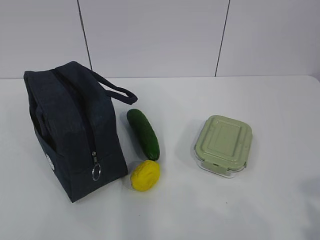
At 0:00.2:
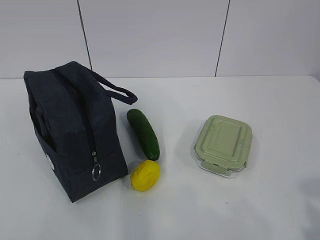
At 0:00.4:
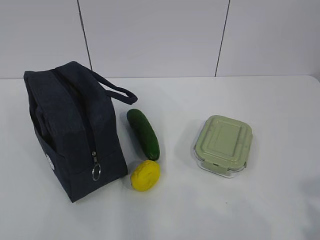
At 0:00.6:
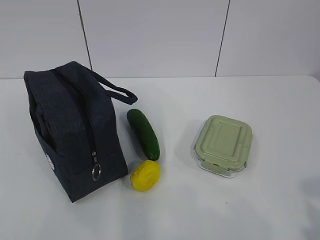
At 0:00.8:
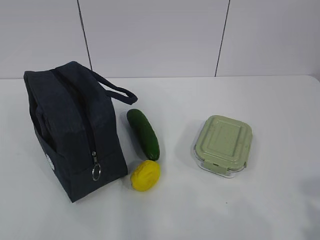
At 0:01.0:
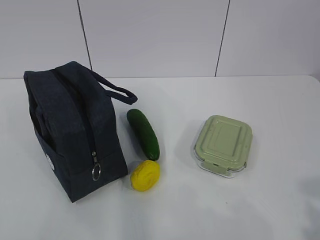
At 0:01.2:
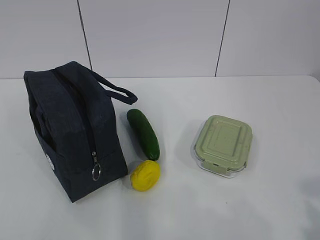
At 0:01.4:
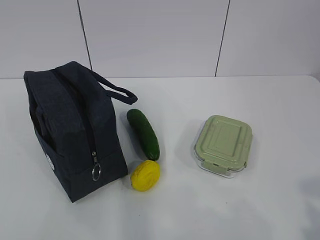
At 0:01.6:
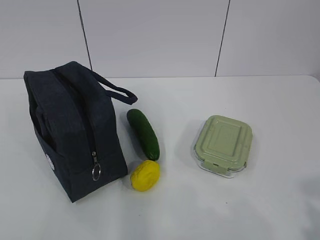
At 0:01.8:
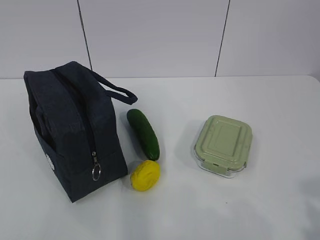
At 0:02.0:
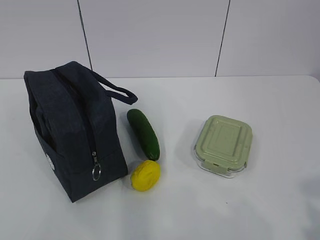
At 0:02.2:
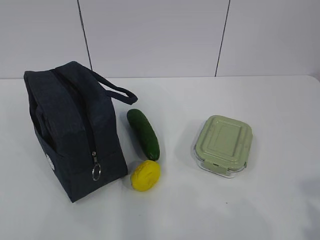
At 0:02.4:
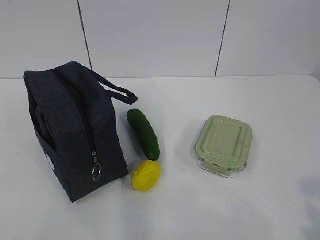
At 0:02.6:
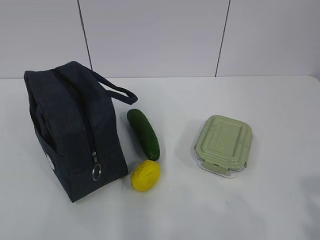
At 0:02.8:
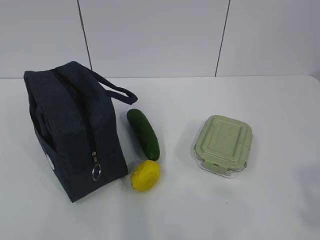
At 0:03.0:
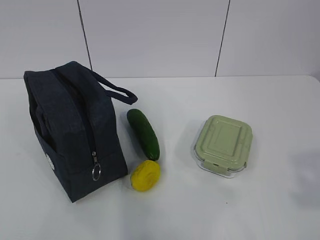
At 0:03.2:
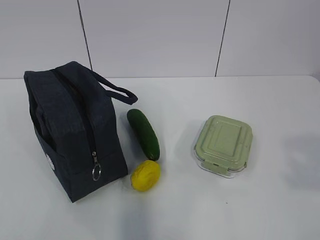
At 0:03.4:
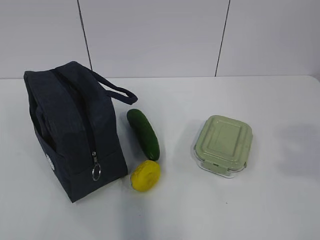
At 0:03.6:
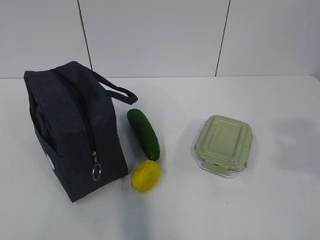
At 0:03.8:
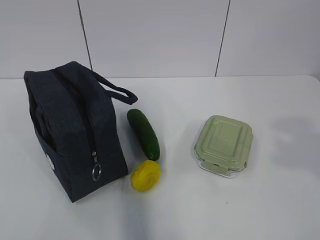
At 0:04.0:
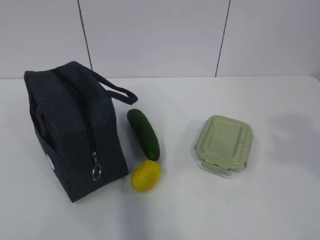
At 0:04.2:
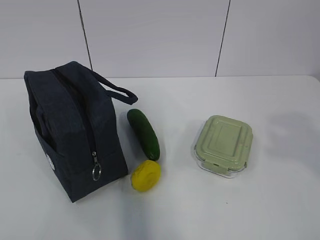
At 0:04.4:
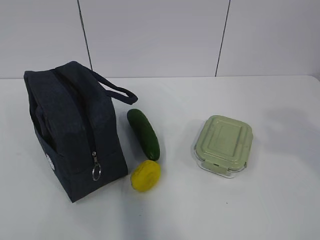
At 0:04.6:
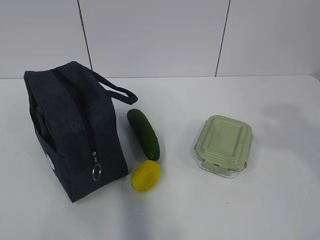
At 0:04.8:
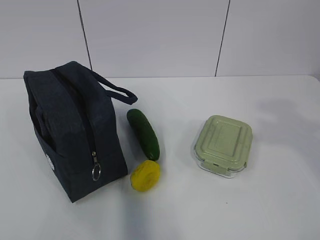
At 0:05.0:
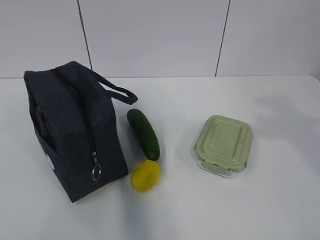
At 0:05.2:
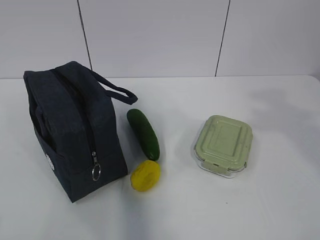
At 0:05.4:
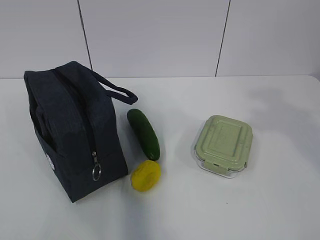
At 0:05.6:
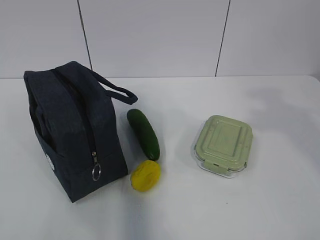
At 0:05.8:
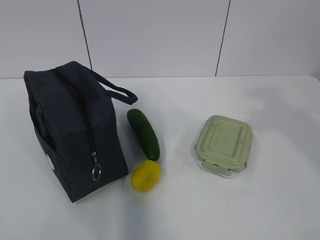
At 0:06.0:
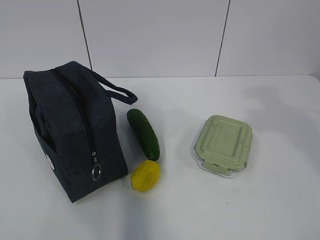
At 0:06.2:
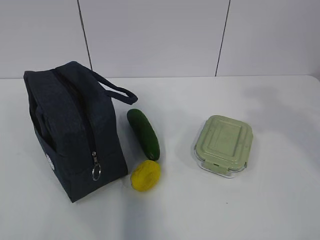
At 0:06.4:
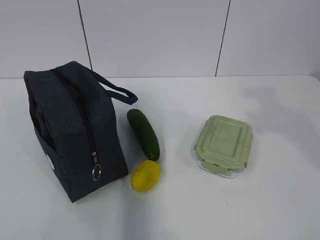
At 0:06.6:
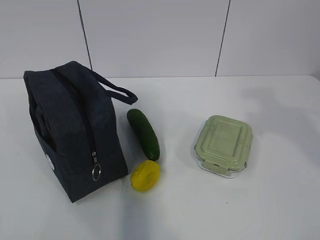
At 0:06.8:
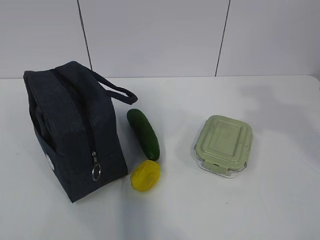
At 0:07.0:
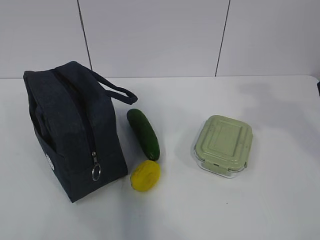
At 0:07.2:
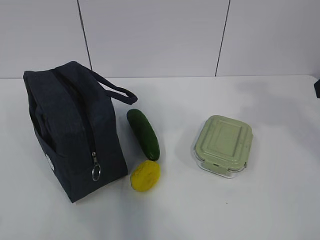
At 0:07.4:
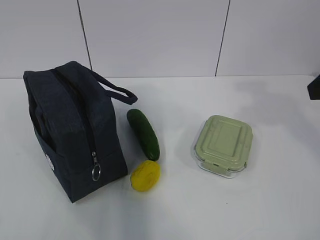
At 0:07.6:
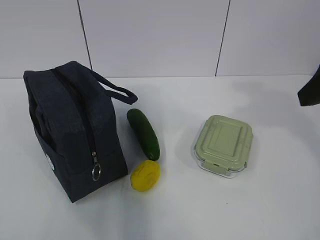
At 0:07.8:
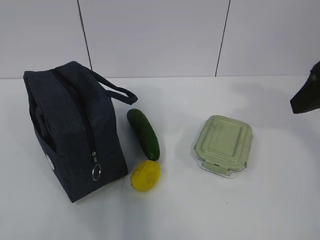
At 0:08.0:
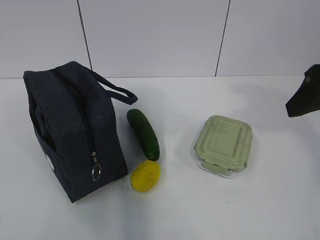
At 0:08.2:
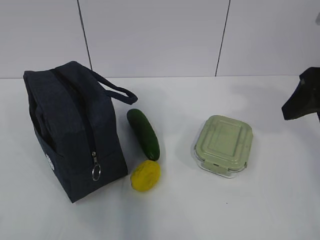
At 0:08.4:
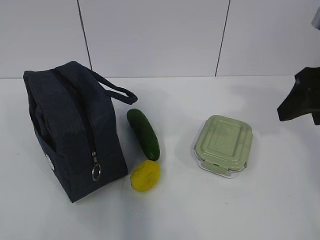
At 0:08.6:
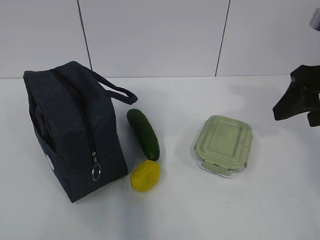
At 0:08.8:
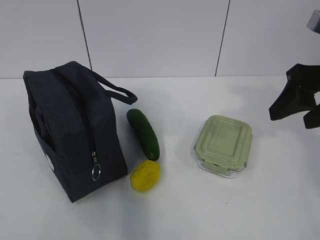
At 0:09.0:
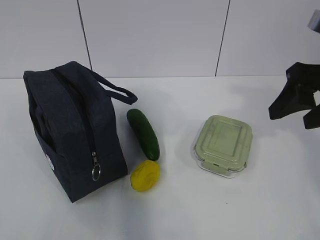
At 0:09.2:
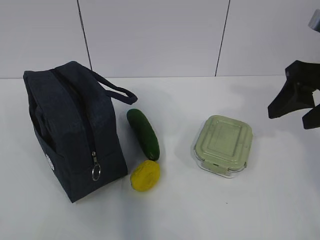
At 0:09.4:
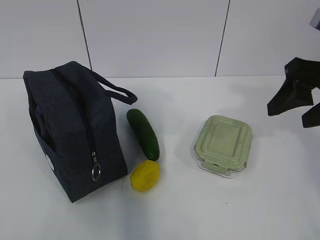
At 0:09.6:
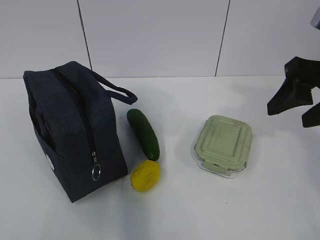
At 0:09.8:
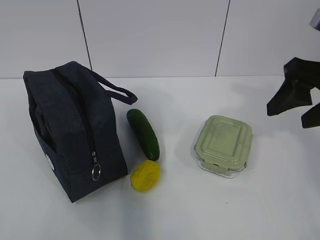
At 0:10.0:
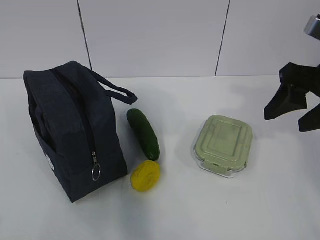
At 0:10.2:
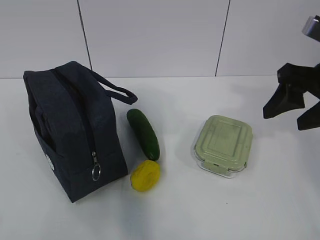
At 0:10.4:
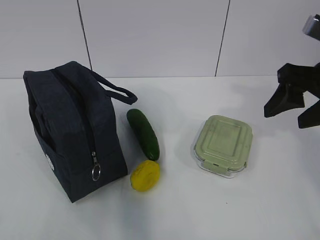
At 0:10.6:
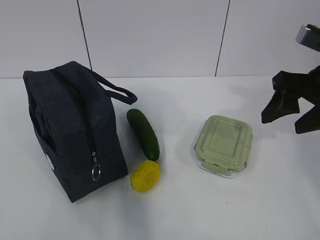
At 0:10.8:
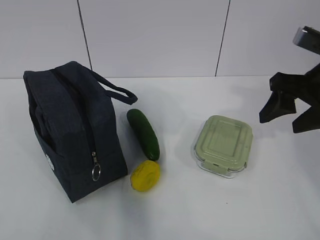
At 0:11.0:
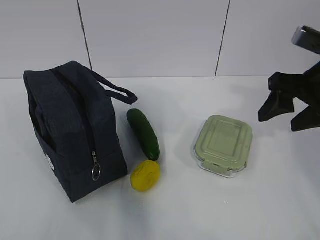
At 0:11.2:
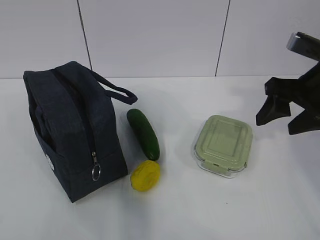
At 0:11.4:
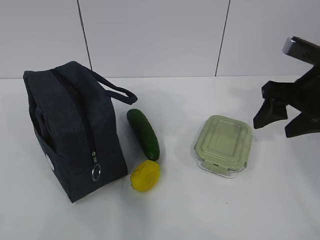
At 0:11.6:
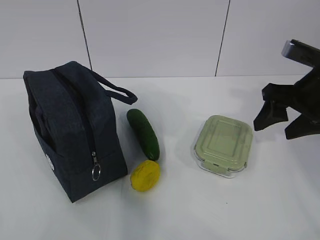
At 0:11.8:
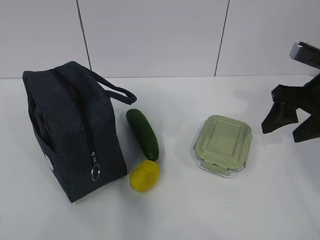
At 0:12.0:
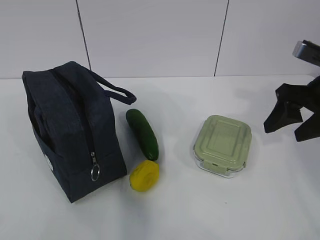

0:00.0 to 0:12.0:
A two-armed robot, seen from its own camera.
0:06.0 to 0:07.6: The right gripper goes some 5 cm forward.
0:07.6 to 0:09.0: The grippers move only a little.
0:09.0 to 0:10.4: The grippers make only small movements.
0:10.4 to 0:12.0: The grippers stay close to where they were, moving slightly.

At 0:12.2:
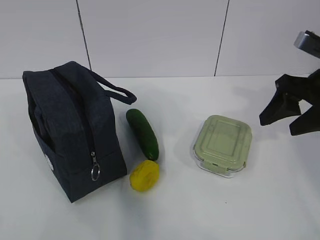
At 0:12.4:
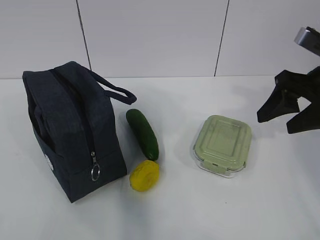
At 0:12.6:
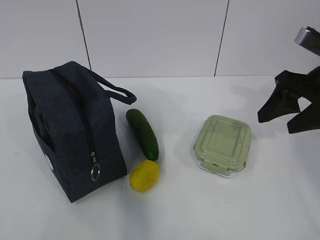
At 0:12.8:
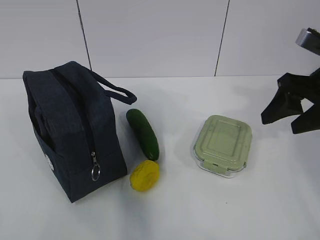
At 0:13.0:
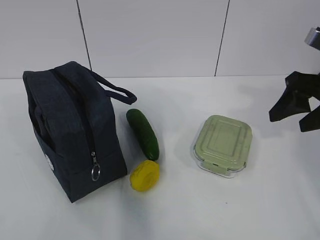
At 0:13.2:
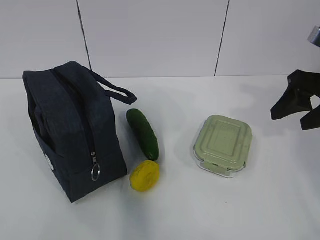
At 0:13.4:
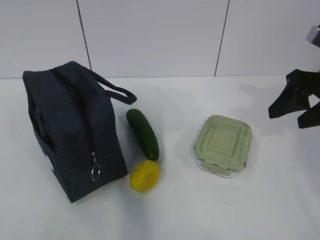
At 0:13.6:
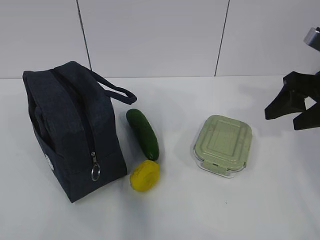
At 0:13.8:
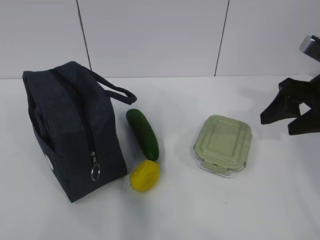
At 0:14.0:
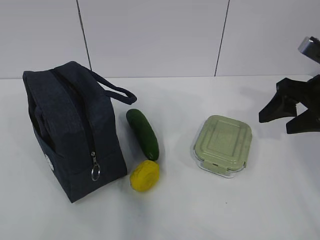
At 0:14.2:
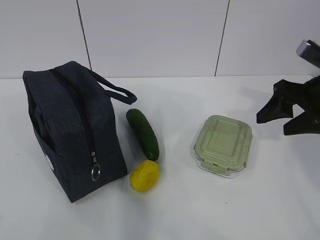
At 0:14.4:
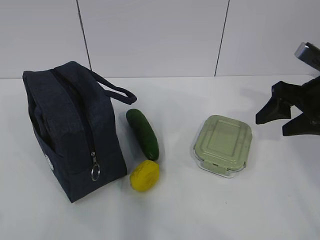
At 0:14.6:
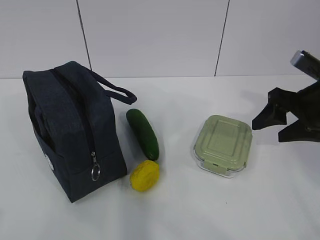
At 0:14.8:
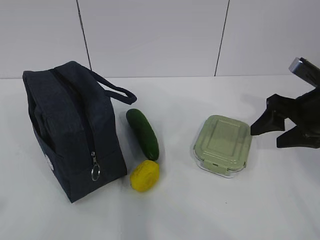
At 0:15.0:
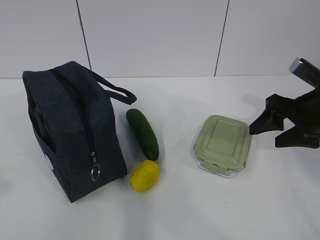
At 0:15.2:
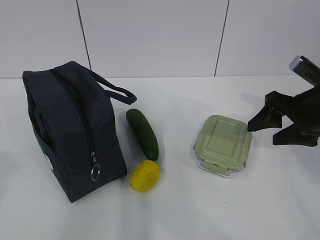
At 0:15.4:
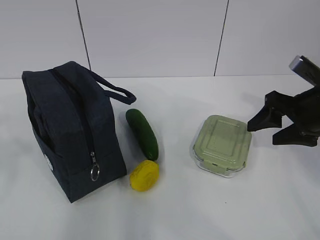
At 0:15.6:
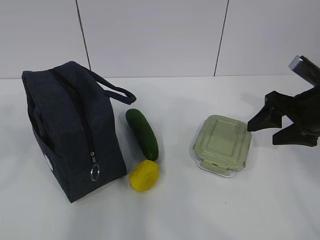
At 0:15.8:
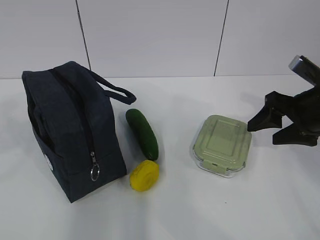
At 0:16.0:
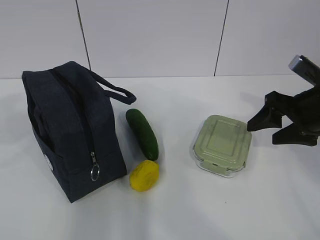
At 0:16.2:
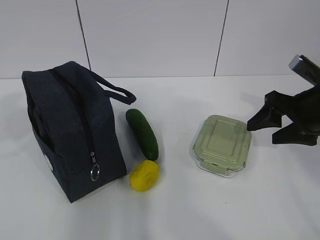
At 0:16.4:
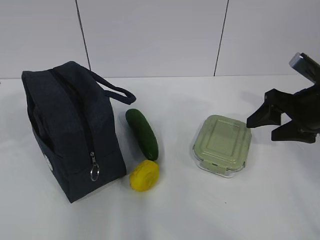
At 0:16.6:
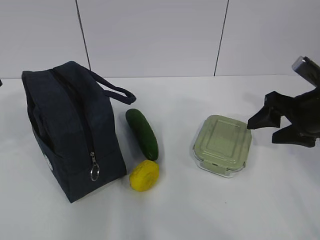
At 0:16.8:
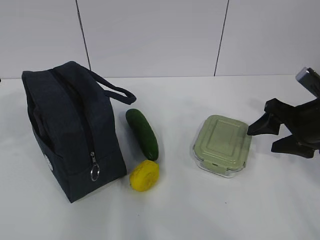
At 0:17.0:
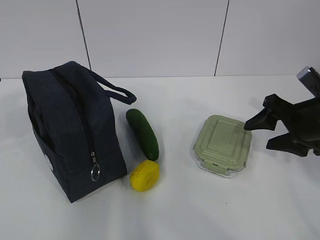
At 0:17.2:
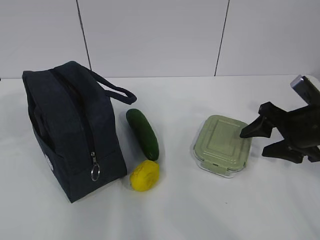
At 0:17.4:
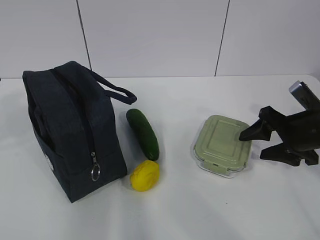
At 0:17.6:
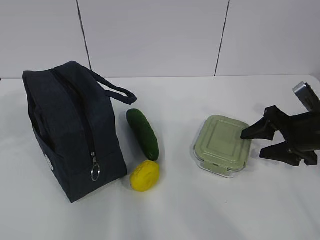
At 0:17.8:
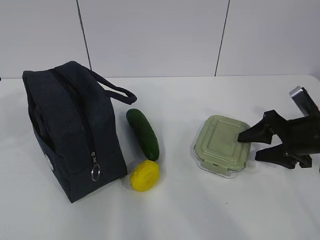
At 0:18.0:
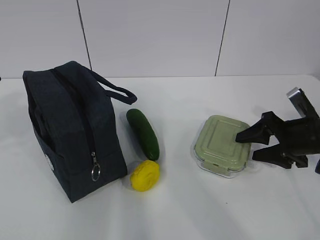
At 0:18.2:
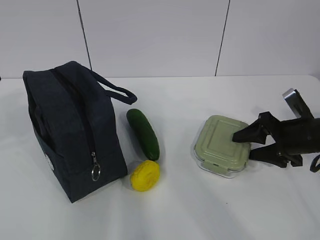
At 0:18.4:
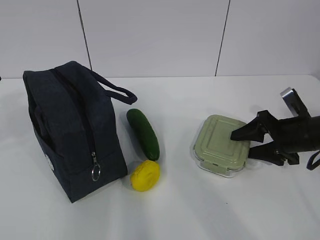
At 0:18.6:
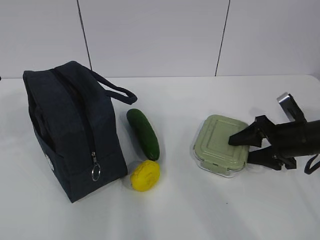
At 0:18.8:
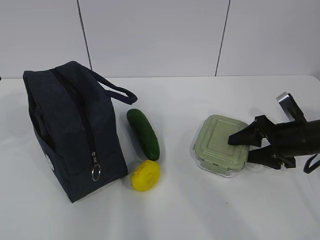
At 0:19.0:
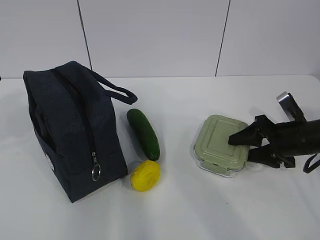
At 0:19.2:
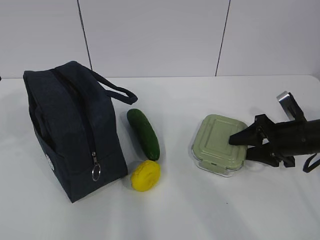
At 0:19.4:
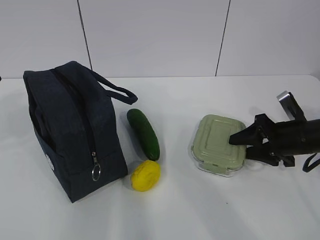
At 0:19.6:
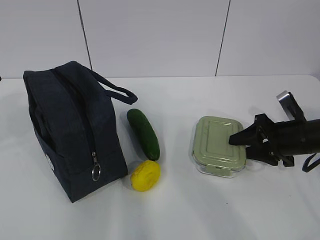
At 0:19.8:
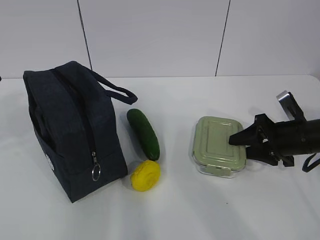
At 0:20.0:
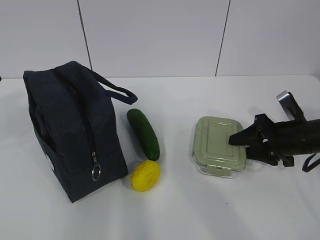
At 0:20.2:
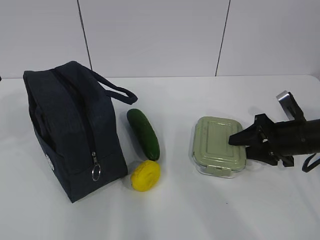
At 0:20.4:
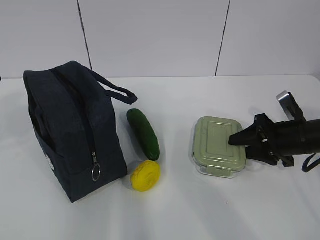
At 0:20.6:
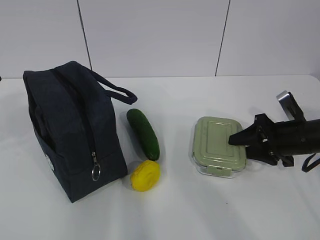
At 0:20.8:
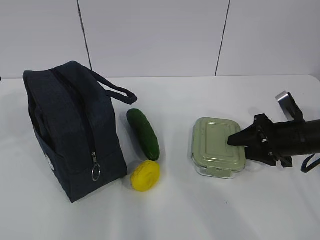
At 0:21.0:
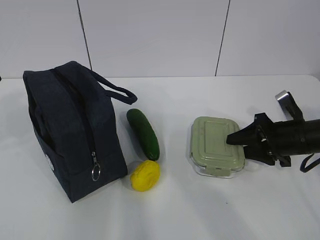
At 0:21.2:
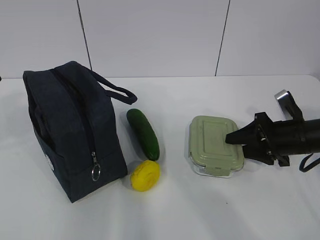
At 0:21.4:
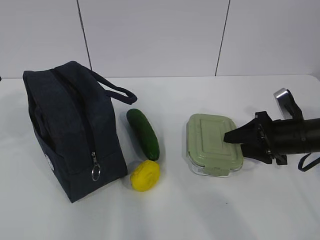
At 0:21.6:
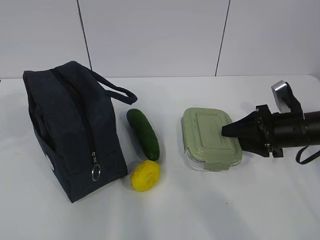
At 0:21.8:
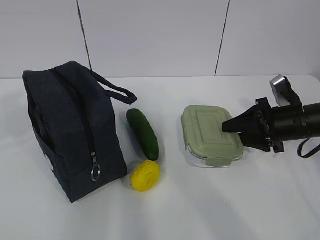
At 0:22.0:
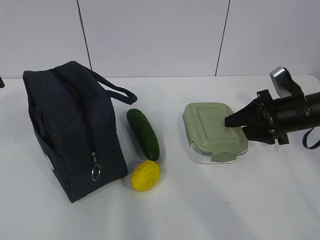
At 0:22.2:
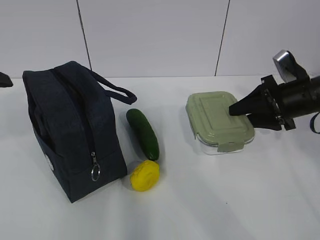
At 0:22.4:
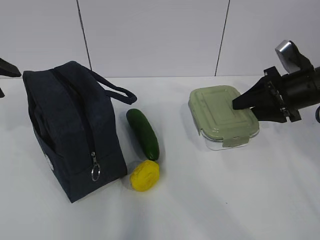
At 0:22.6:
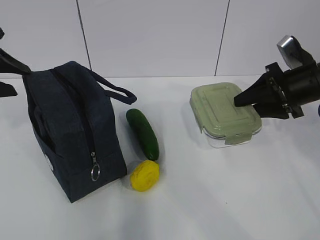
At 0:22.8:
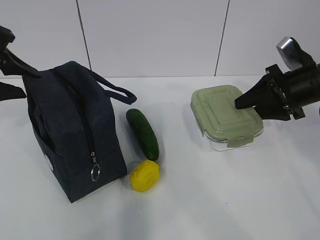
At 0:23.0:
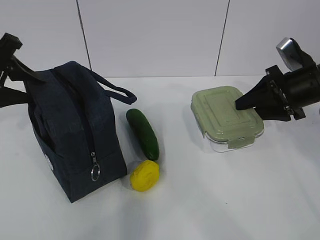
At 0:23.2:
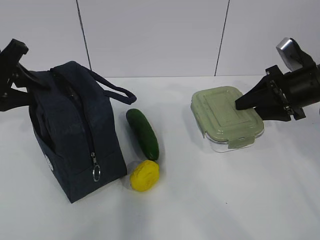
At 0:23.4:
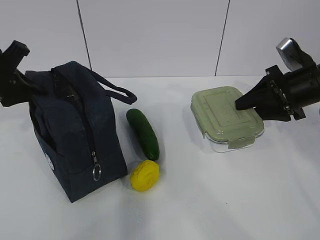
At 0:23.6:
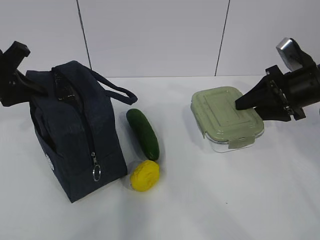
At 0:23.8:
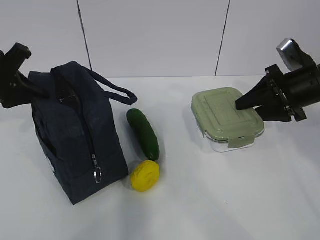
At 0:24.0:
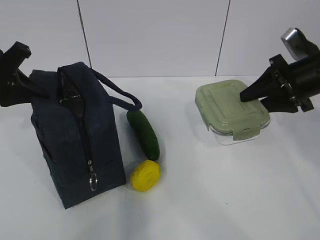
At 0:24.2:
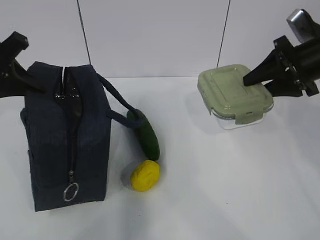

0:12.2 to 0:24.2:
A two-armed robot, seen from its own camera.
Step, 0:12.2 to 0:17.4: Grab the lunch box with your right hand.
Step, 0:21.6 to 0:23.2: Place it into the bag with your right hand.
0:12.2 to 0:13.8: The grippers stay close to where they were, moving slightly.
0:15.2 to 0:16.6: The left gripper is displaced forward by some 15 cm.
0:16.6 to 0:18.2: The right gripper goes some 10 cm downward.
0:18.2 to 0:19.8: The grippers make only small movements.
0:19.8 to 0:21.2: Both grippers stay put.
0:21.2 to 0:22.6: The right gripper goes approximately 10 cm upward, while the left gripper goes about 10 cm forward.
0:22.6 to 0:24.2: The left gripper closes its fingers.
